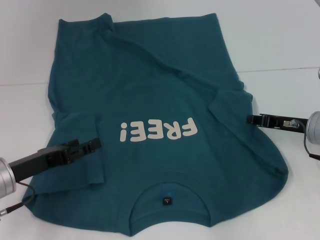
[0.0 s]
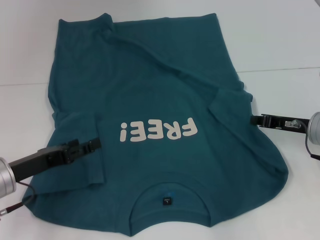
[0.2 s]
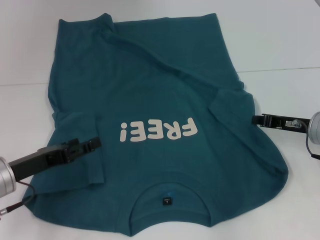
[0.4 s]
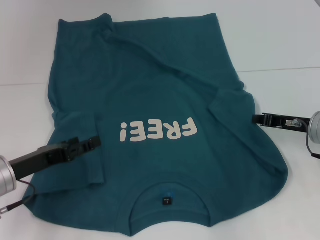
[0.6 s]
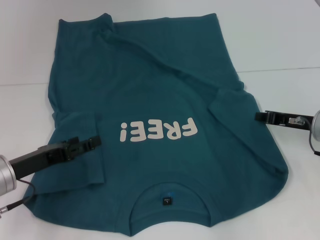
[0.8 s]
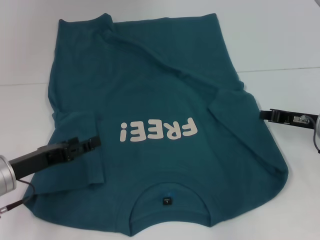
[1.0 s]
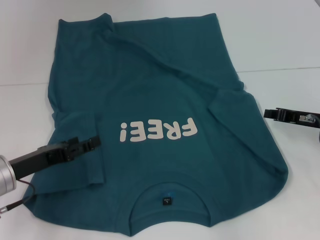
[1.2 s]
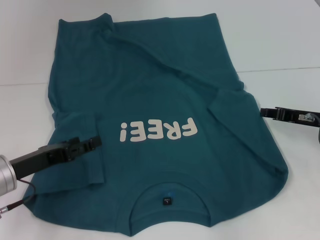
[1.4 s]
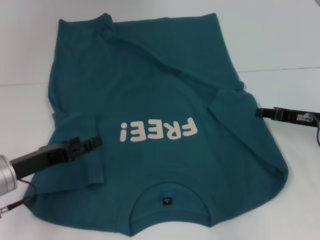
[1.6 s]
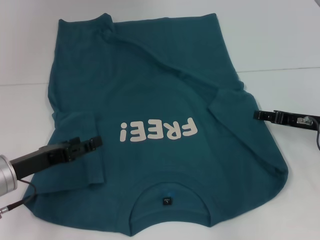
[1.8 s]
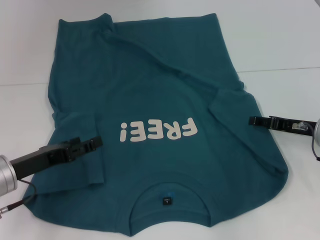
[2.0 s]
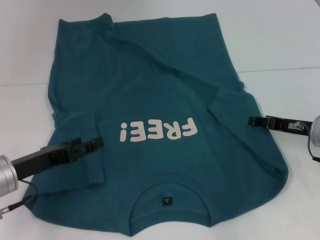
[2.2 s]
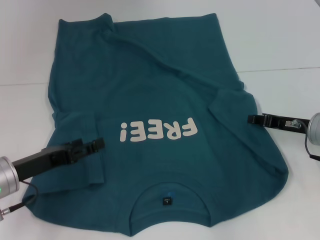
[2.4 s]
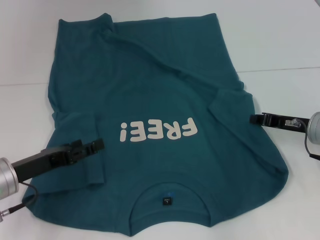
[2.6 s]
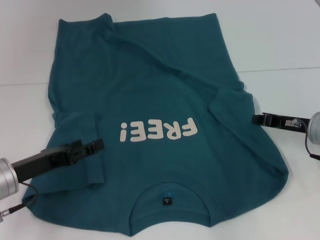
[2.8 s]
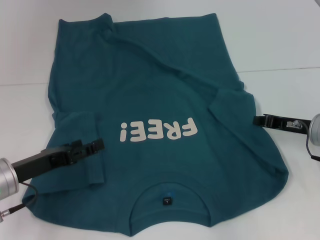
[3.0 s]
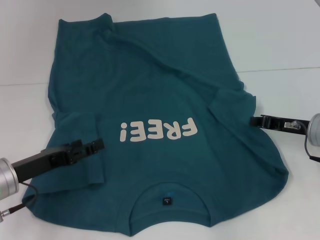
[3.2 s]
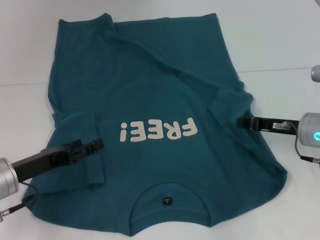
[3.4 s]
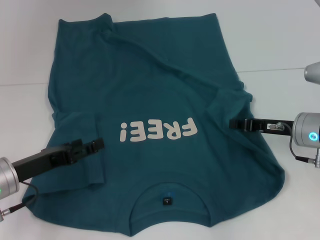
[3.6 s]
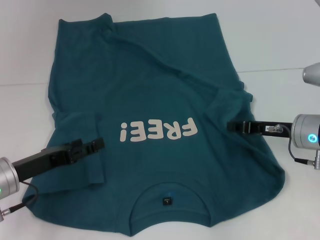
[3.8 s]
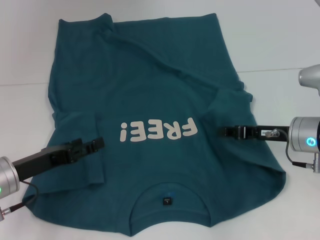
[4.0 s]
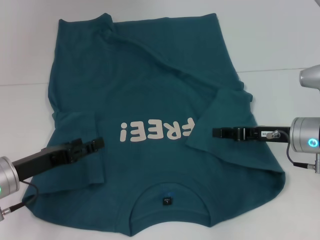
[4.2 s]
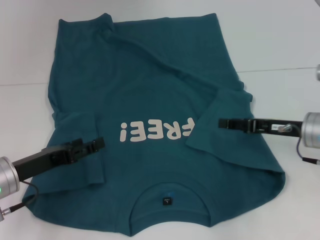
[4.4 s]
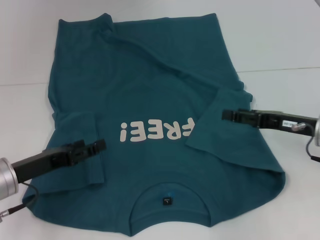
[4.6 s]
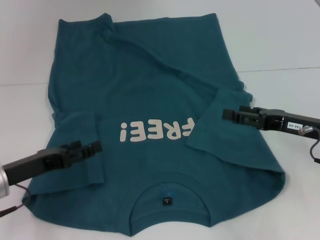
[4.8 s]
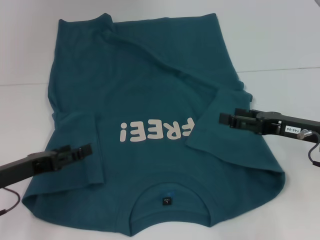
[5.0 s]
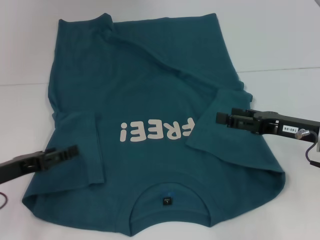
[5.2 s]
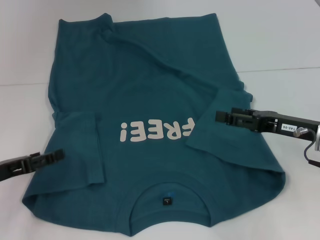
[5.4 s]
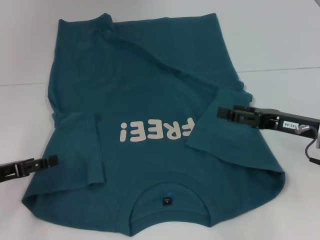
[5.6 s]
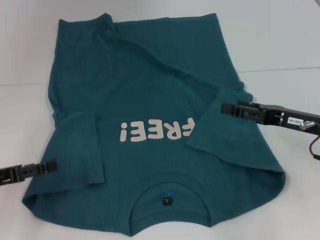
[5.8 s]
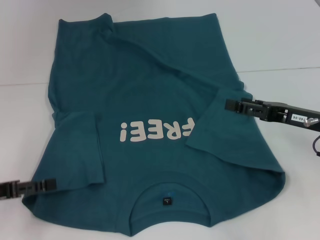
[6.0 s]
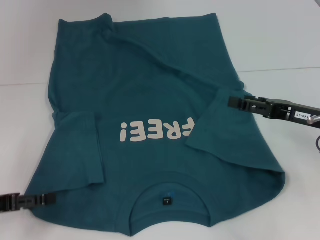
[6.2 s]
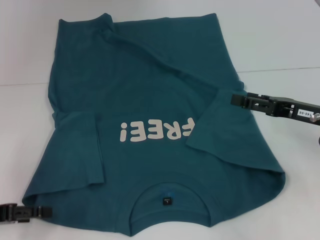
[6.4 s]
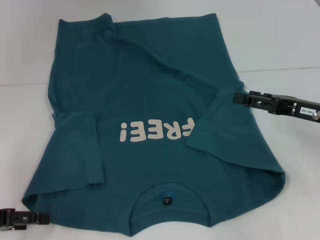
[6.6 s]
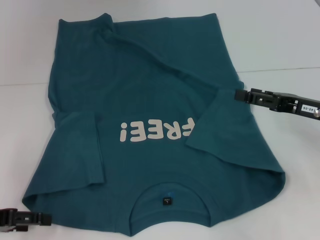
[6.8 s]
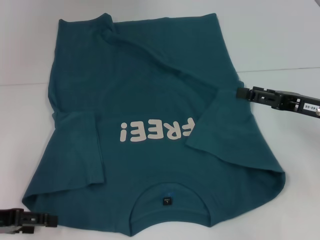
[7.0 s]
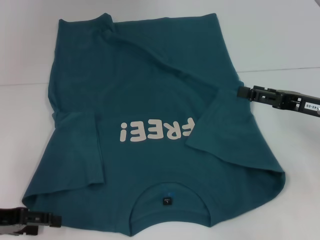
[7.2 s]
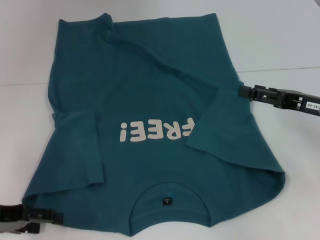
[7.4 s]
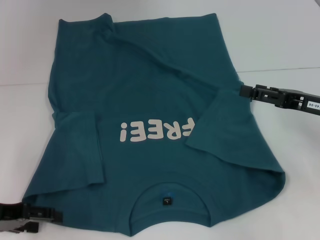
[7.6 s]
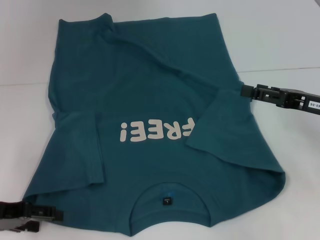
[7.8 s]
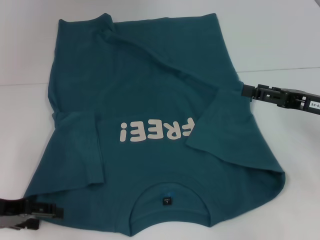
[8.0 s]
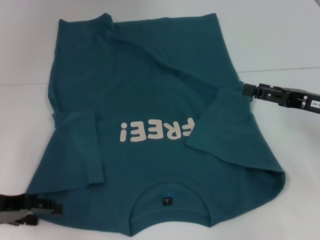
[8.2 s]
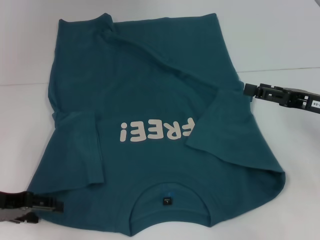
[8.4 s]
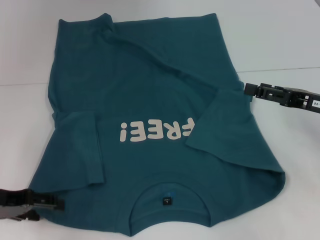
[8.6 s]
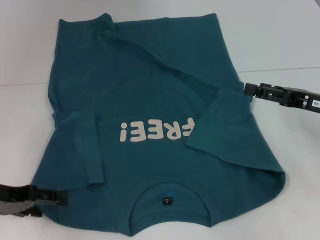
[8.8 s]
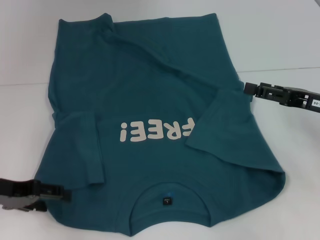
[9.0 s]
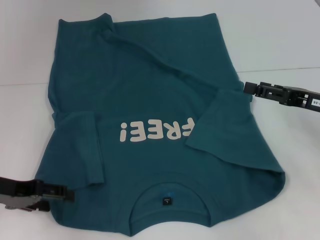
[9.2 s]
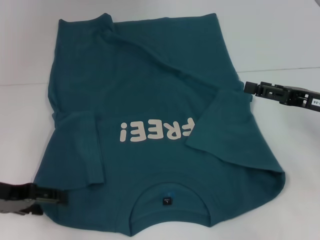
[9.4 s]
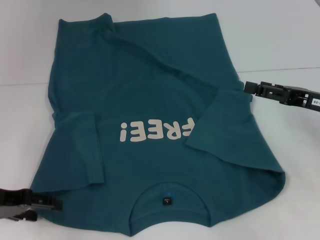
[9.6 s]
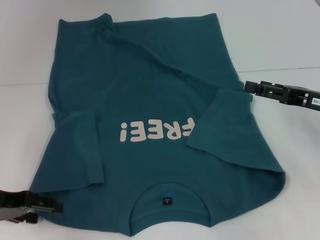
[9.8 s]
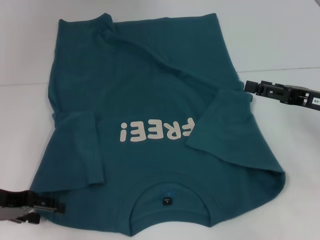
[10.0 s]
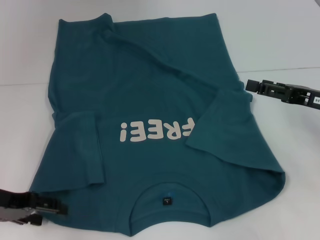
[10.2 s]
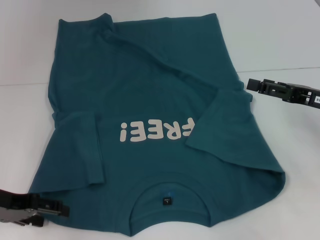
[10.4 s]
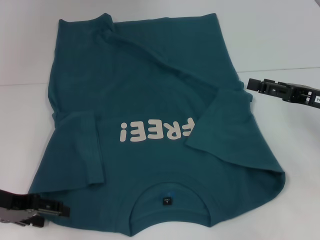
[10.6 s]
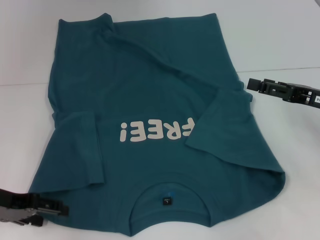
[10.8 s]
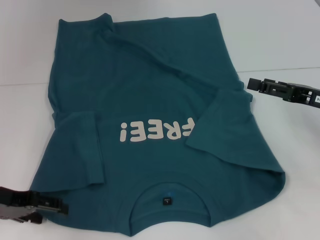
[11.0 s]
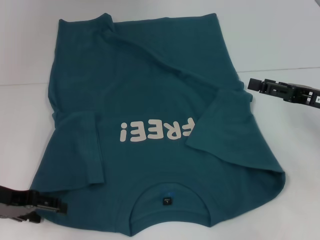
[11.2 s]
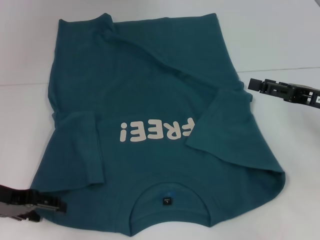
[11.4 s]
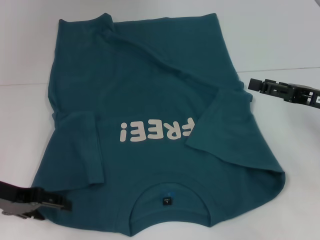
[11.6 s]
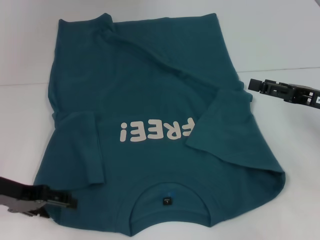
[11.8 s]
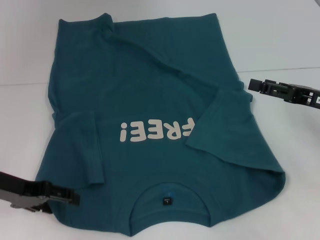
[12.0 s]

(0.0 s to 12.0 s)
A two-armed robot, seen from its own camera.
0.0 s - 1.6 s: There are only small adjustments of the grippers.
1.6 s - 3.0 s: The right gripper opens and closes again.
3.0 s - 4.4 s: The right gripper opens.
4.4 s - 6.0 s: The left gripper is displaced to the left by about 5 cm. Meanwhile the right gripper opens its fingers.
7.6 s - 12.0 s: There are only small adjustments of the grippers.

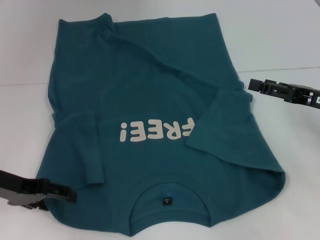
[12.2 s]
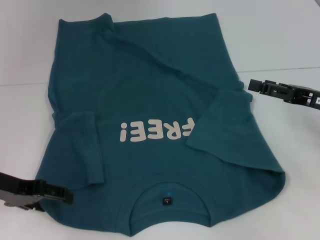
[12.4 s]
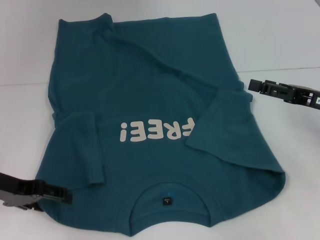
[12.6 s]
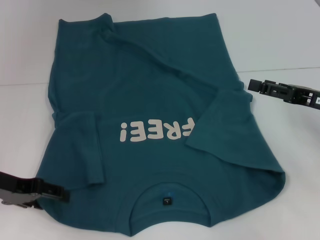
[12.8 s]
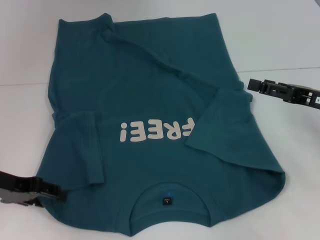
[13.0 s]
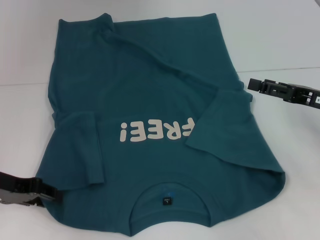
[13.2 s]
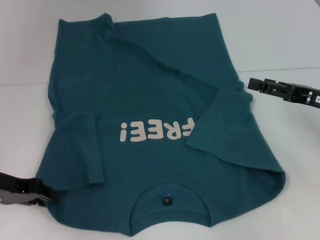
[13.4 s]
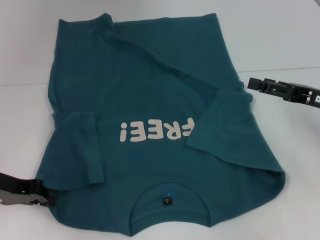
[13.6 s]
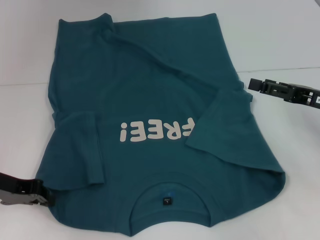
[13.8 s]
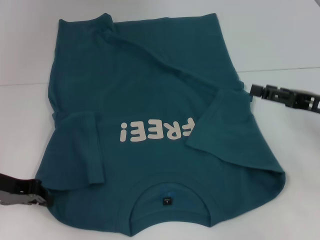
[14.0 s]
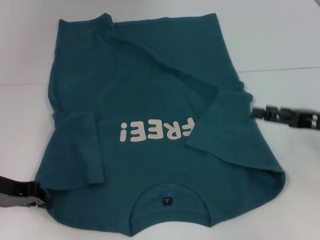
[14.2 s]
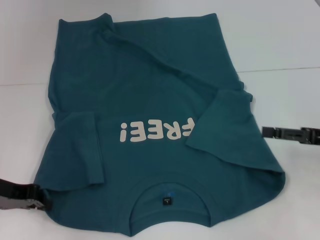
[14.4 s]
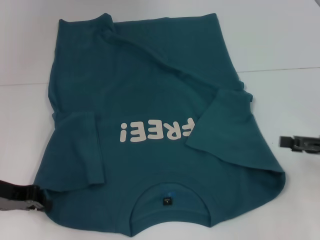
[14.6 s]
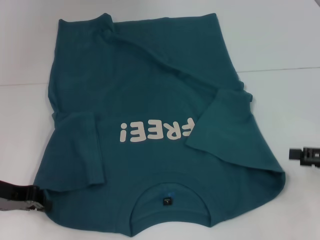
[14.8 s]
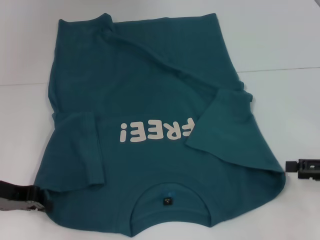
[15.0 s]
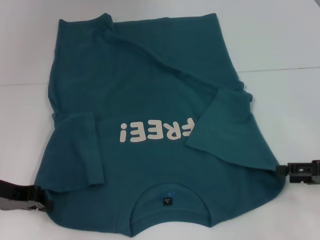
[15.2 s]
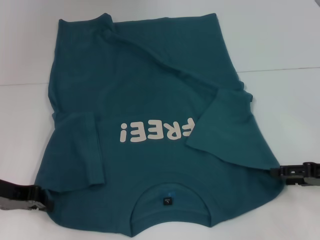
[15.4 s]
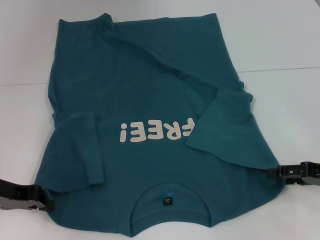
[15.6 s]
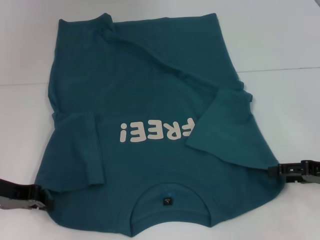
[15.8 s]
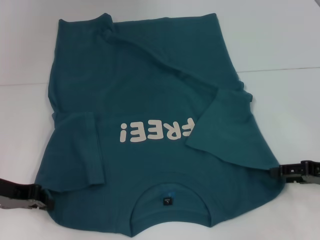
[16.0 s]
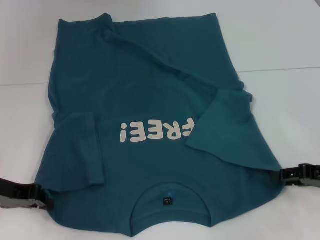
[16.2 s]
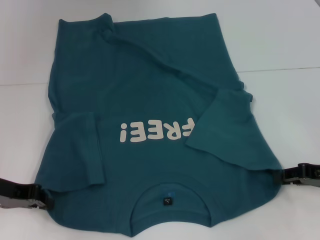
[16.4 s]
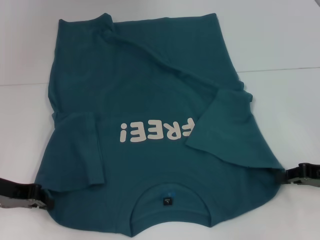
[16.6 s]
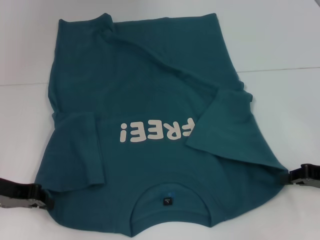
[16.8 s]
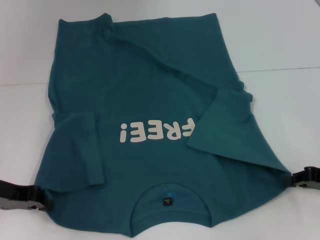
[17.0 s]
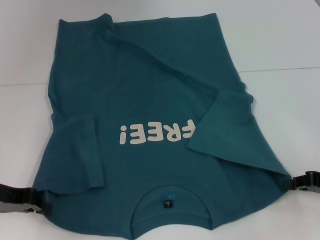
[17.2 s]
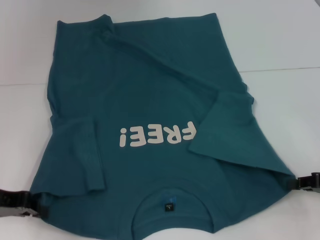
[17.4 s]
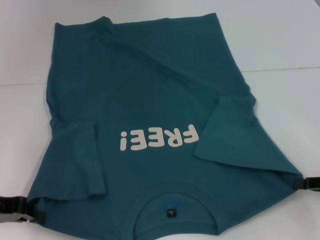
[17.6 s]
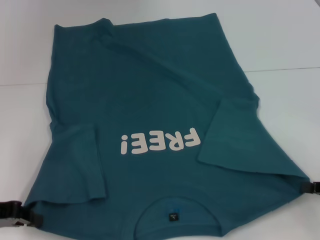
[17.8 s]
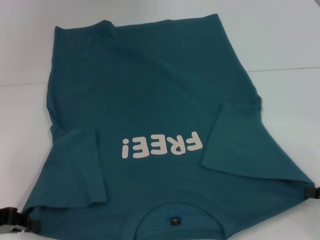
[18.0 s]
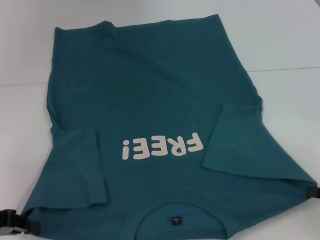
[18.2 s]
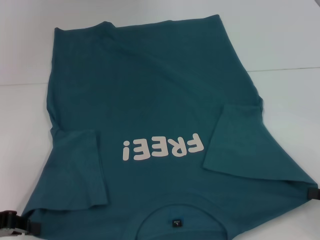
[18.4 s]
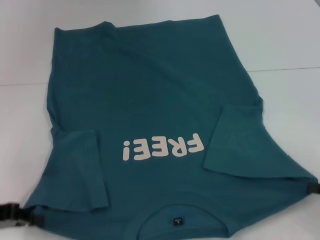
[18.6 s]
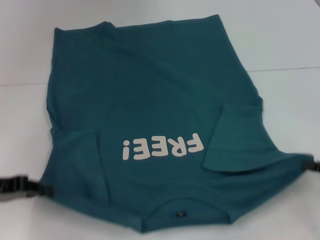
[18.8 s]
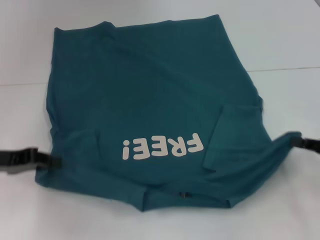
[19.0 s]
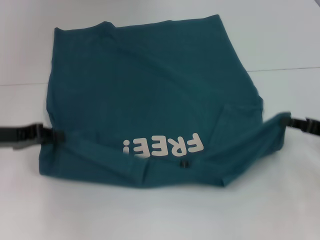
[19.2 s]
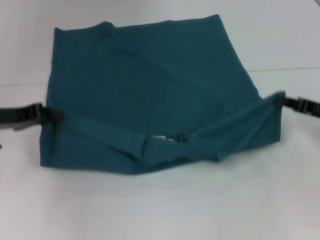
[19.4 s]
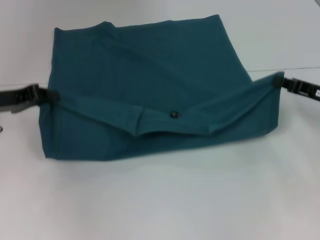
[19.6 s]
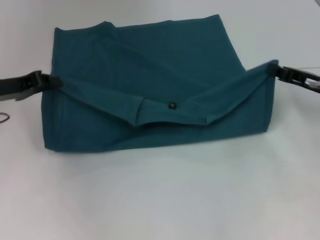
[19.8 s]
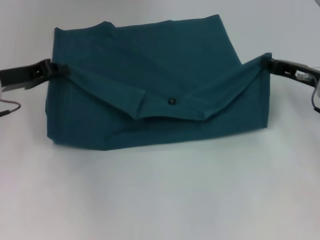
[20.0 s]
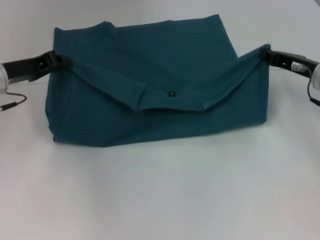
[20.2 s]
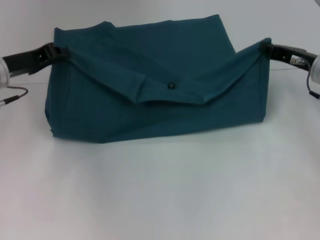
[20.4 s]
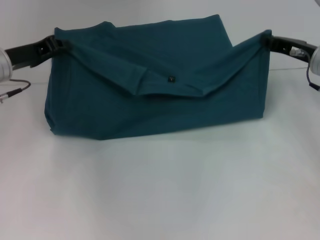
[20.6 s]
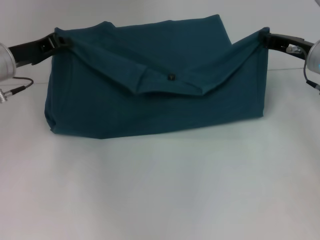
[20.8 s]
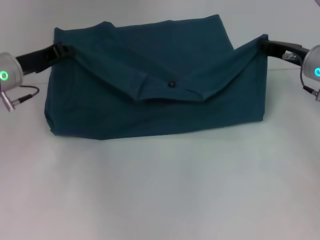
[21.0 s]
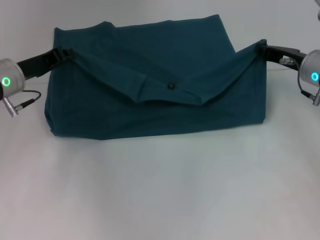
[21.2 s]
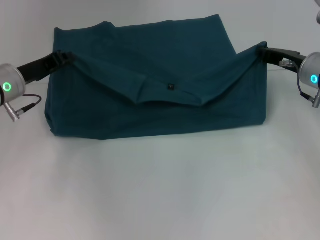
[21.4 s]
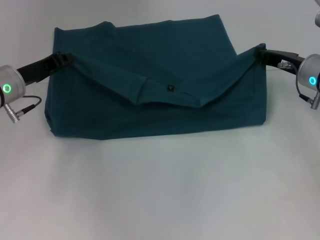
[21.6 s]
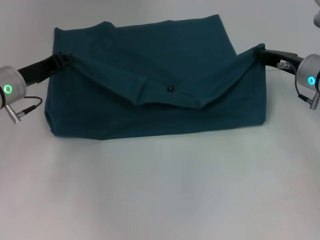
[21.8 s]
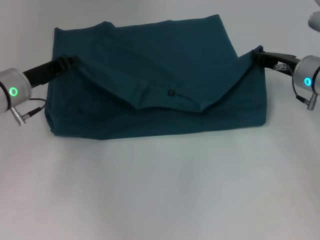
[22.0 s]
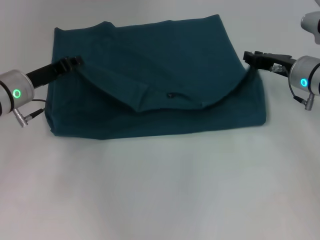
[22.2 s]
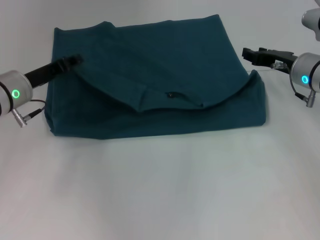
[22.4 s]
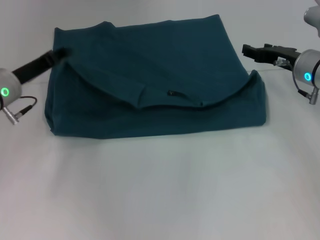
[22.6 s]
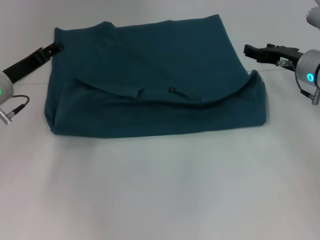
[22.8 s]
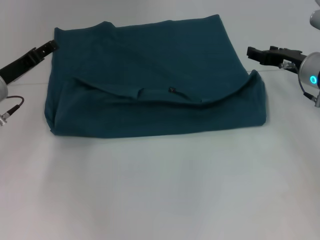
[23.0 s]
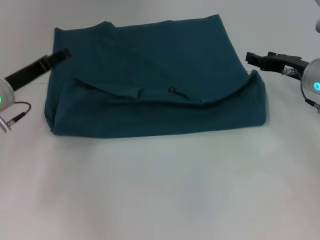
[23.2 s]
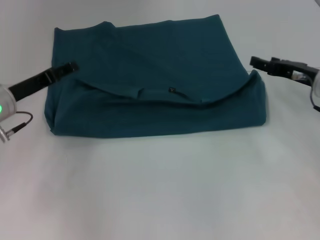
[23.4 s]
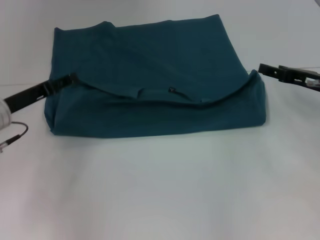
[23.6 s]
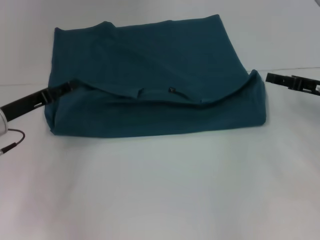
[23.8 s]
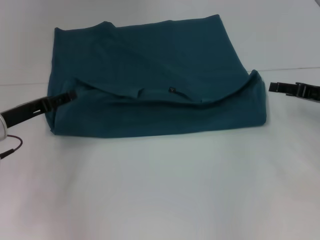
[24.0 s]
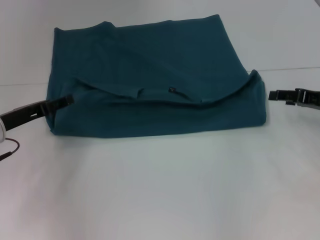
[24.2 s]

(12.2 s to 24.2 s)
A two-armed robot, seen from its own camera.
Step, 14.2 s - 16.8 s: Grab the bottom right corner with your right hand.
Step, 17.0 s - 22.8 s: Fold the clothes to the left.
Step, 17.0 s - 22.8 s: Fold the clothes to the right.
12.2 s - 13.8 s: The left gripper closes.
13.8 s - 15.2 s: The right gripper goes roughly 5 cm backward.
15.2 s - 16.6 s: The right gripper closes up.
16.6 s - 18.2 s: The grippers both shift backward by roughly 5 cm.
18.2 s - 19.8 s: The left gripper shifts approximately 15 cm forward; the right gripper moves forward and to the left, approximately 20 cm.
19.8 s - 21.2 s: The right gripper moves about 5 cm; the left gripper changes place by some 5 cm.
21.2 s - 22.6 s: The right gripper opens its fingers. The left gripper opens up.
22.6 s - 24.2 s: The left gripper moves backward, some 5 cm; the right gripper goes about 10 cm to the right and backward.
